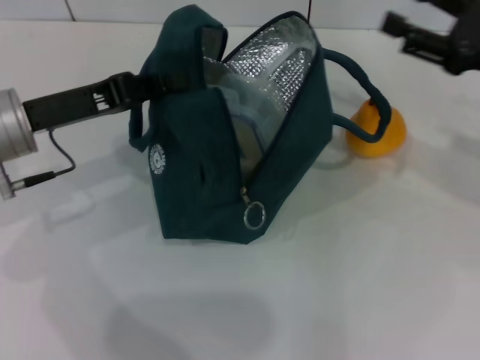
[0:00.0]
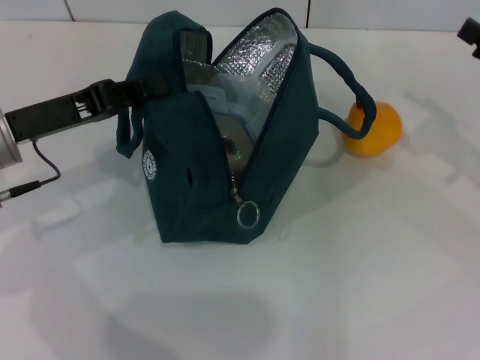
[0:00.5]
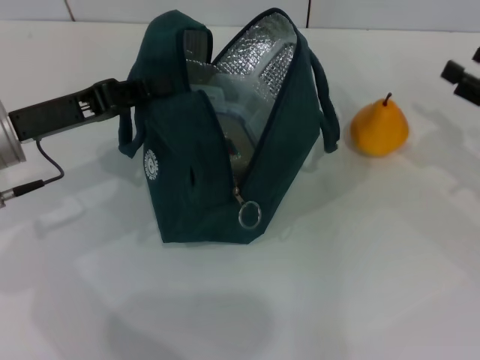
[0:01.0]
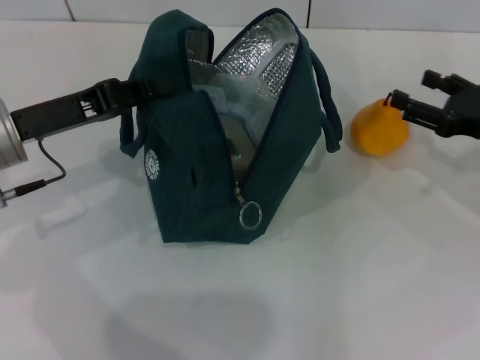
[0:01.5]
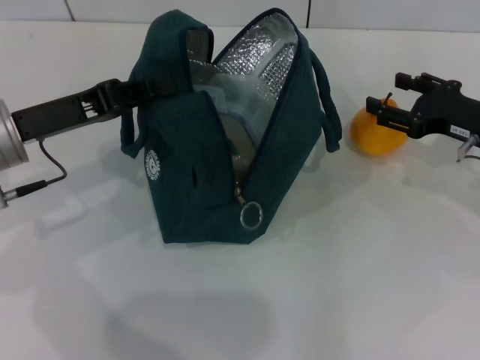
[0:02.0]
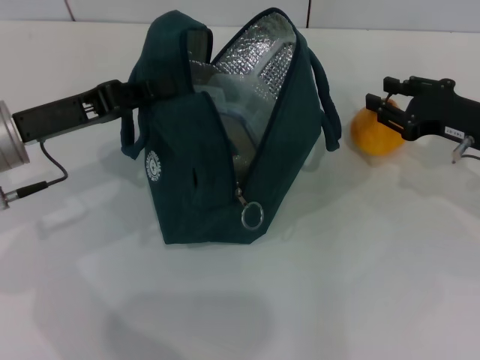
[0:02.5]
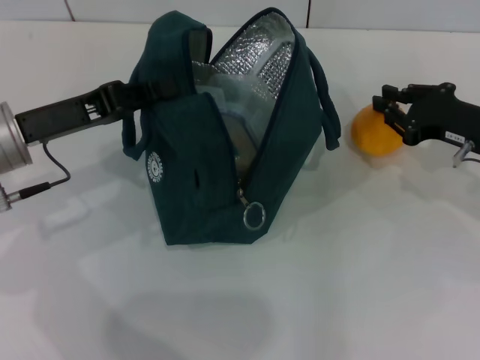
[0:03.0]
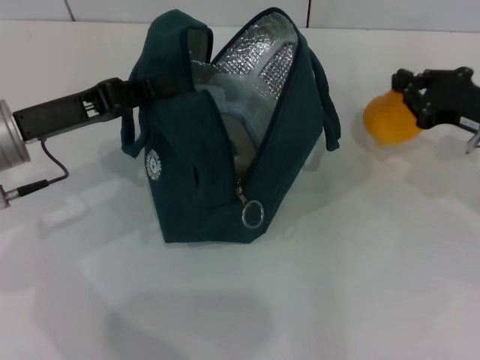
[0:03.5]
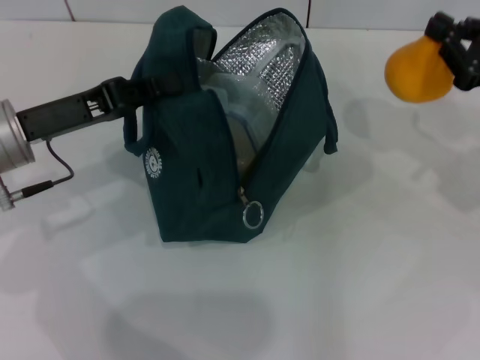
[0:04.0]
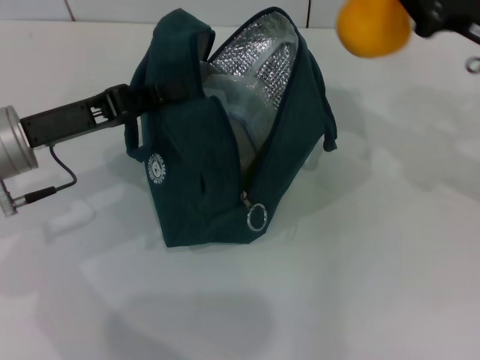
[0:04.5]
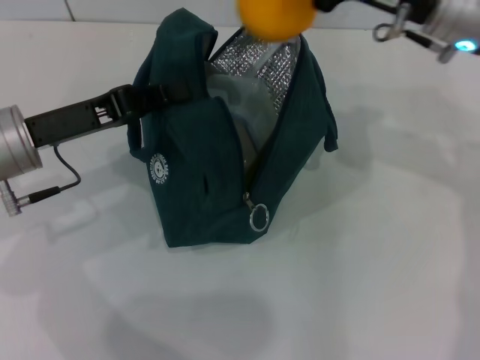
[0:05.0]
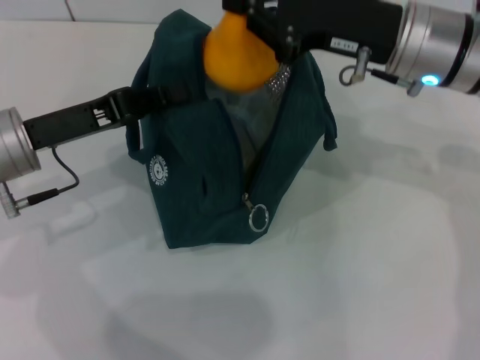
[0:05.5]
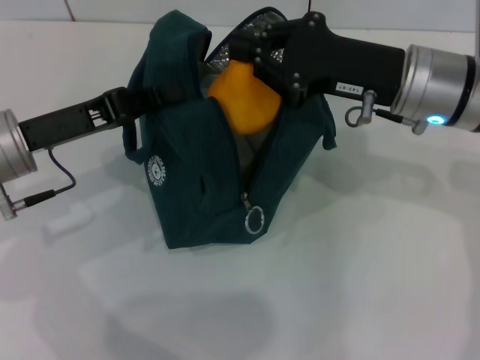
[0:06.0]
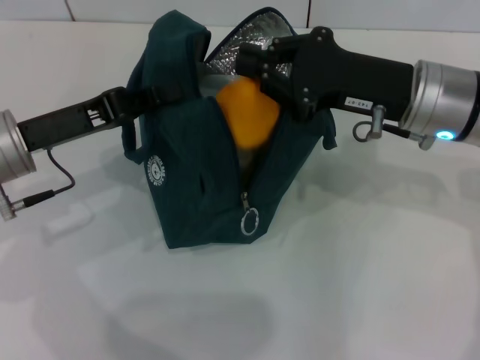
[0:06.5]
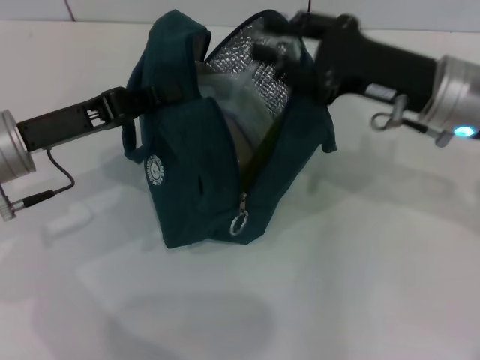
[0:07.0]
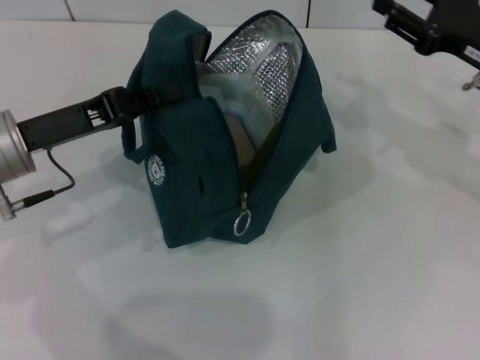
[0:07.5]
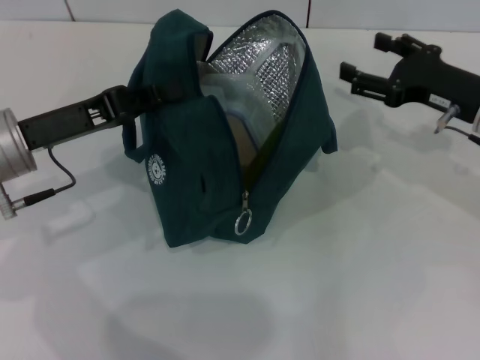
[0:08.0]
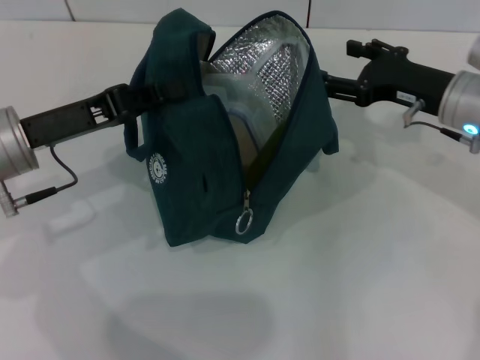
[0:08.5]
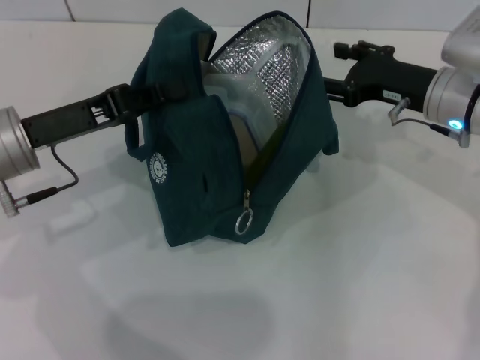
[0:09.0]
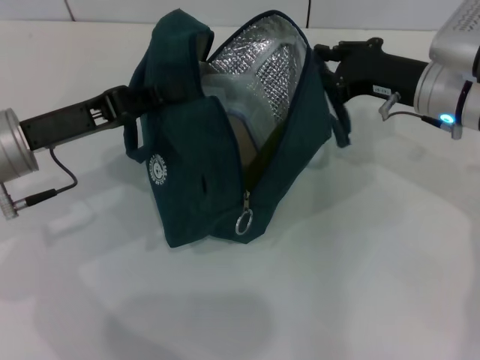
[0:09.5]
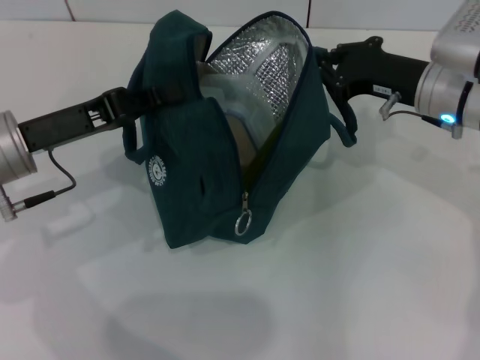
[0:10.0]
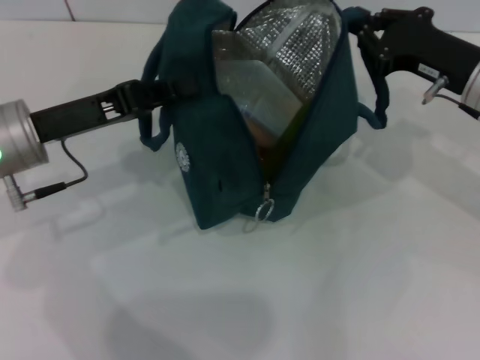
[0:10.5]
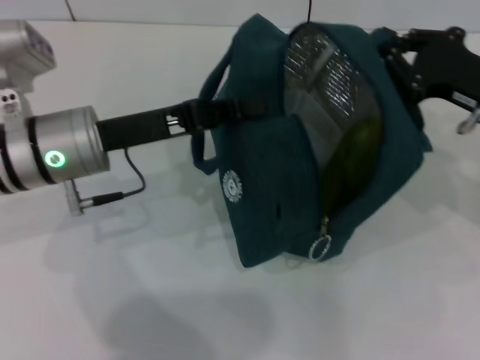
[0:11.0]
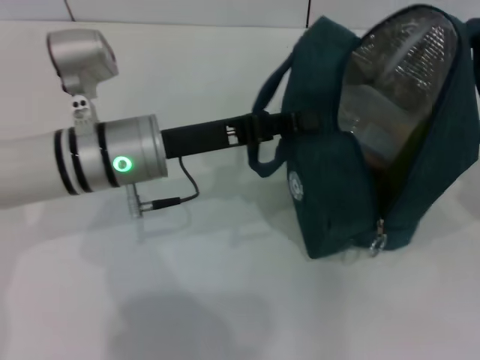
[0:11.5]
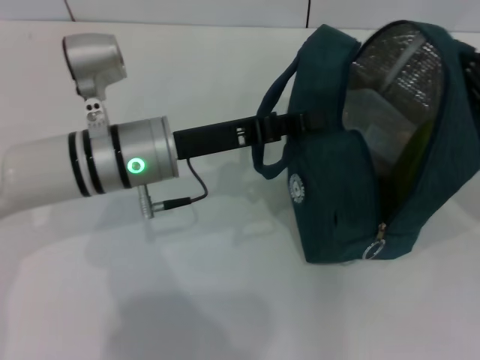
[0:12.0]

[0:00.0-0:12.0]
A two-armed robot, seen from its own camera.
Step, 0:00.0 to 0:03.0: Grab the pear with your right hand.
0:00.0 to 0:02.0: The right gripper is displaced downward by some 5 cm.
0:02.0 to 0:04.0: The right gripper changes place by approximately 5 cm, and closes up.
0:04.0 to 0:06.0: The right gripper goes approximately 15 cm to the left.
0:06.0 to 0:08.0: The right gripper goes roughly 10 cm to the right and downward, and opens its fingers.
0:08.0 to 0:10.0: The right gripper heads to the left, covering some 5 cm, and closes its fingers.
0:10.0 to 0:12.0: The right gripper moves to the right and backward, some 15 cm, while the left gripper is displaced to the right by about 10 cm.

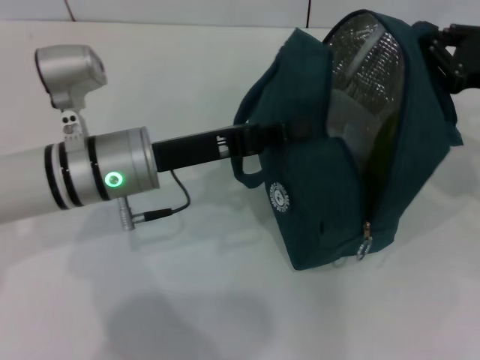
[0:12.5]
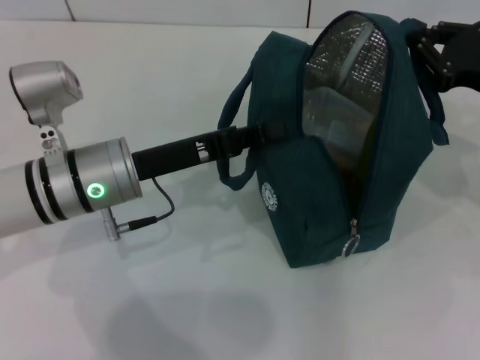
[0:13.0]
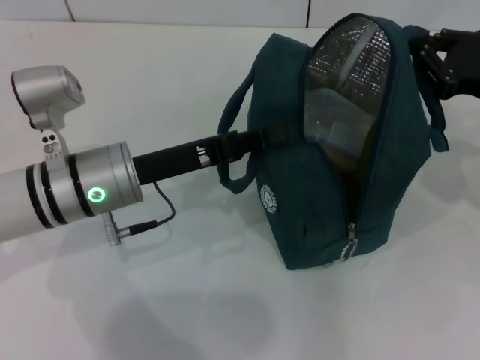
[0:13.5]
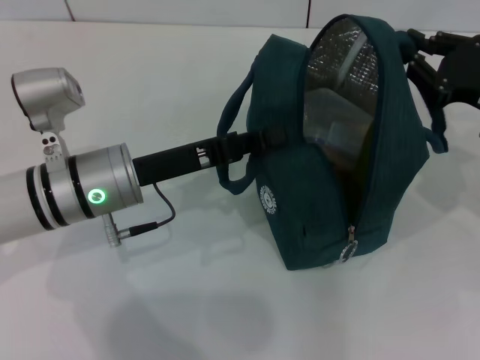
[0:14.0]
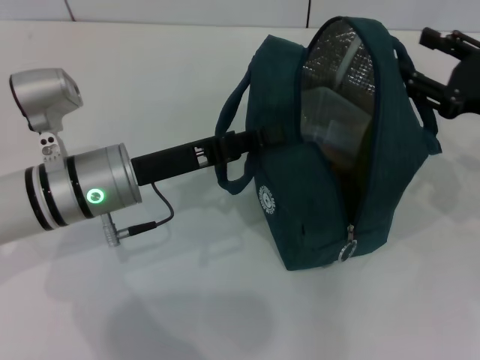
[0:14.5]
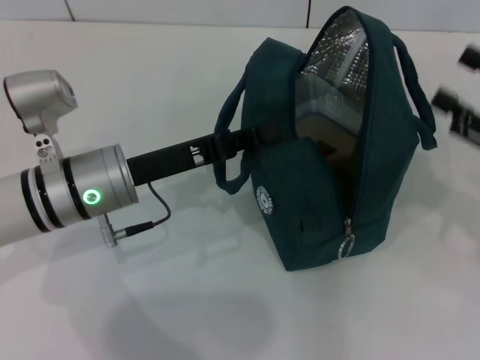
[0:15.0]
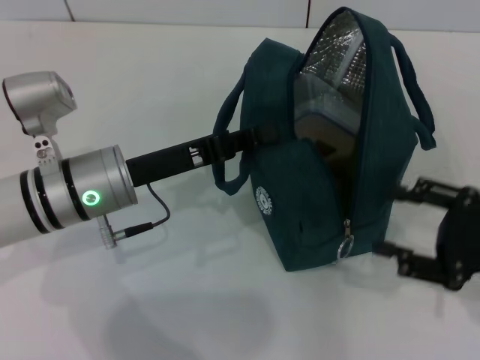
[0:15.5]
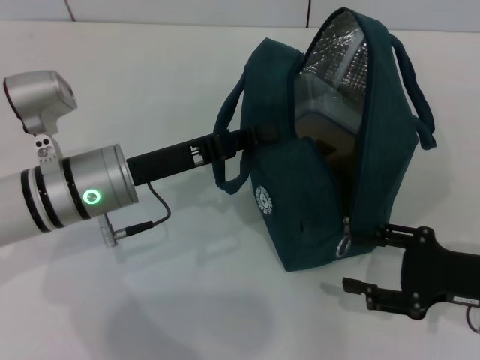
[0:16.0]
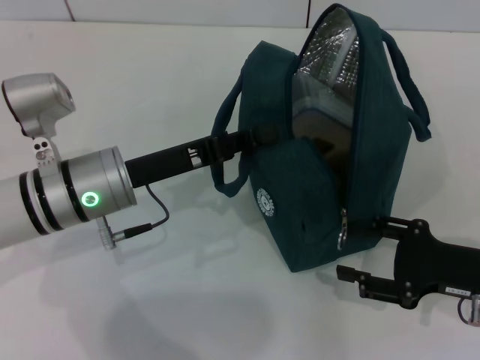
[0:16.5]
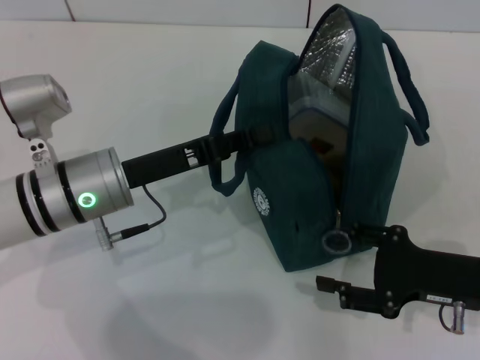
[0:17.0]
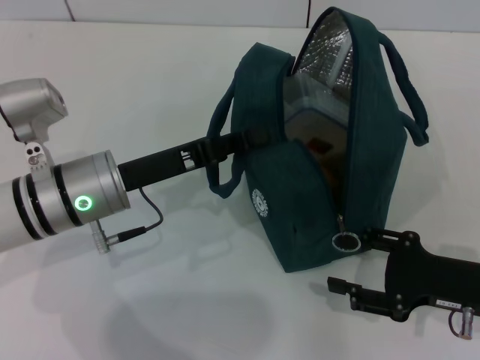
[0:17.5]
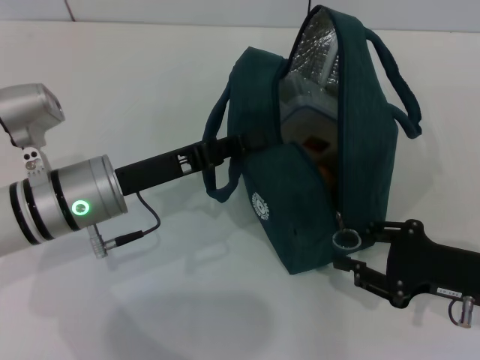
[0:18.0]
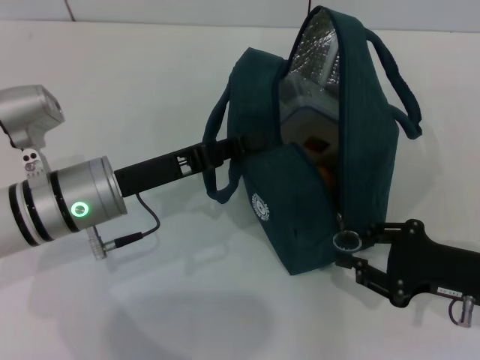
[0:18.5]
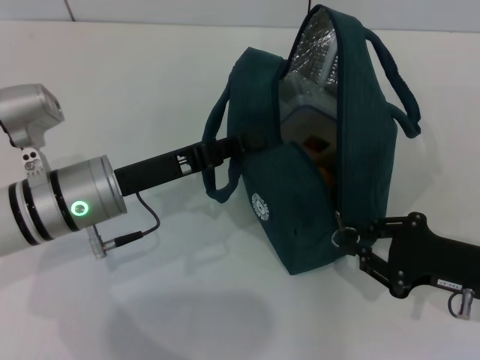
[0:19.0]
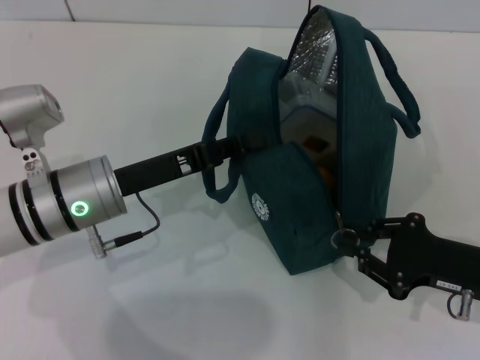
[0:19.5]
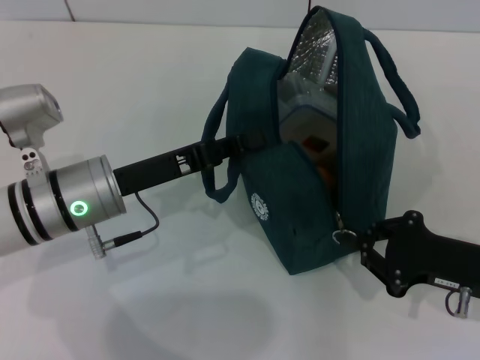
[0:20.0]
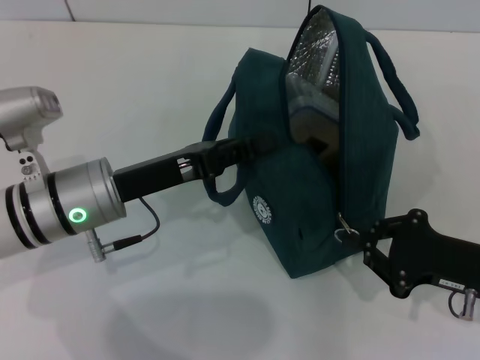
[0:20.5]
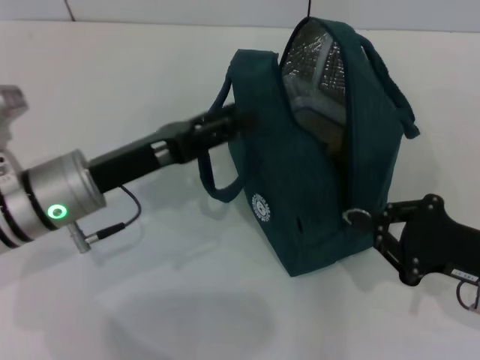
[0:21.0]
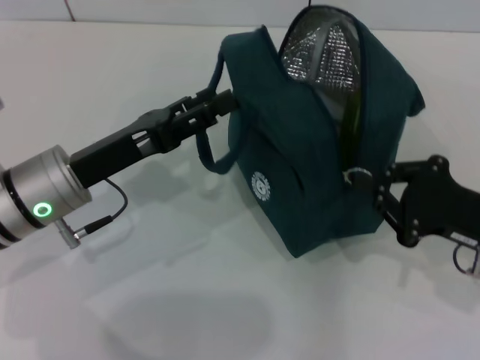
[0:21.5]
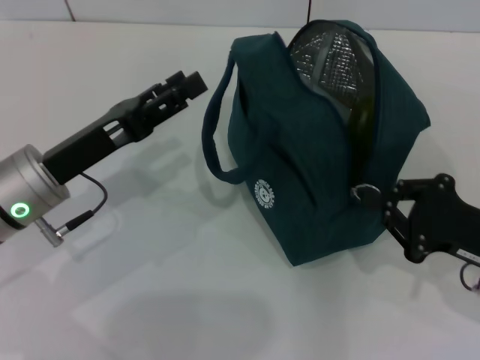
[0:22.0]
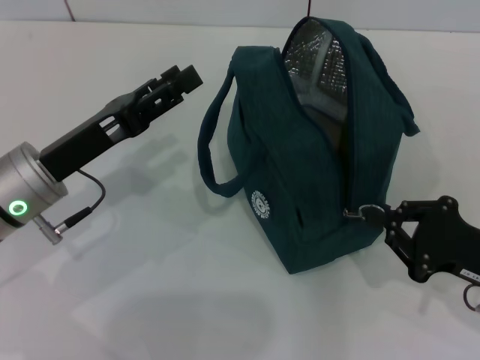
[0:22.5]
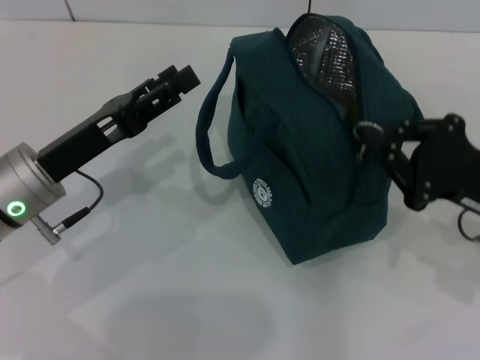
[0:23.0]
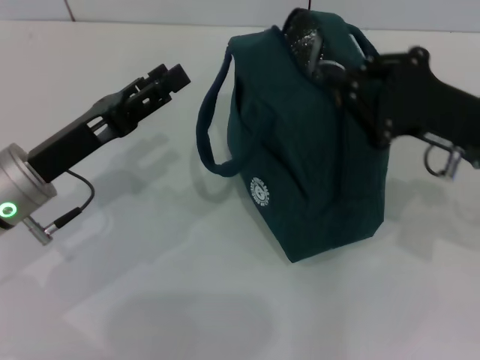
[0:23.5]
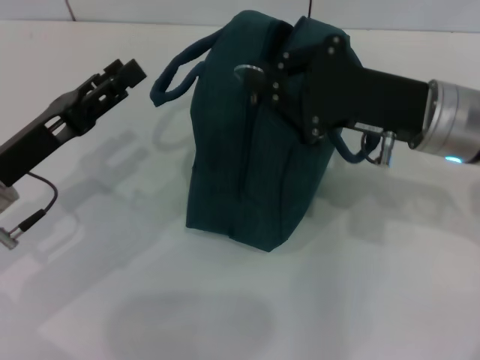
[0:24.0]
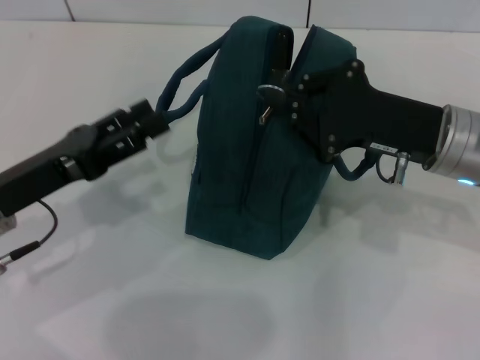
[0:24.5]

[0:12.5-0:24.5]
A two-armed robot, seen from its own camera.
Step, 0:15.0 to 0:21.0: Hold the lunch bag with your left hand.
0:12.5 to 0:14.5: The right gripper opens.
0:14.5 to 0:16.5: The right gripper goes approximately 10 cm backward and downward.
0:16.5 to 0:18.5: The right gripper closes up.
0:18.5 to 0:20.5: The right gripper closes.
0:20.5 to 0:22.5: The left gripper opens its fingers.
0:22.5 to 0:24.5: The right gripper goes approximately 15 cm to the left, forward and upward.

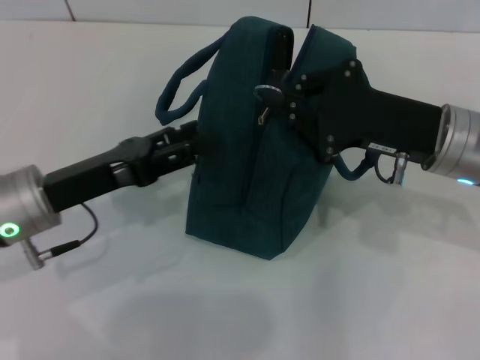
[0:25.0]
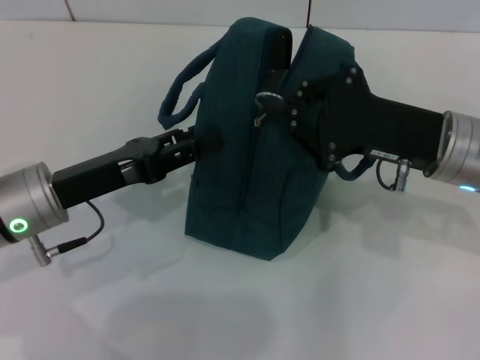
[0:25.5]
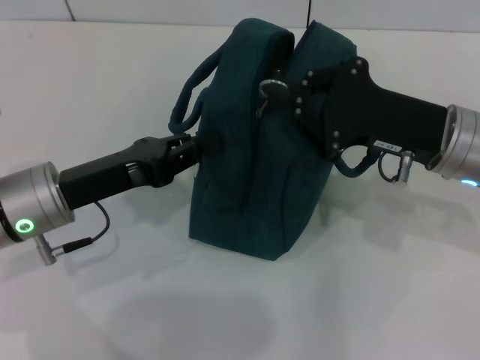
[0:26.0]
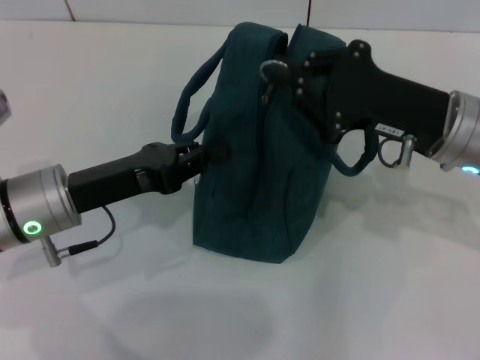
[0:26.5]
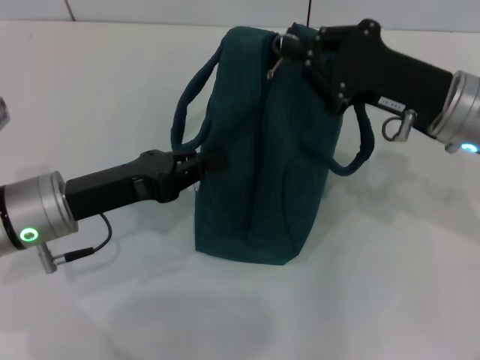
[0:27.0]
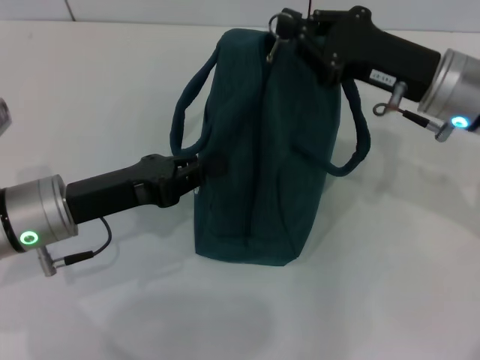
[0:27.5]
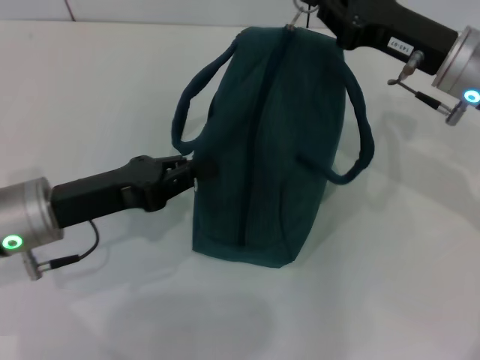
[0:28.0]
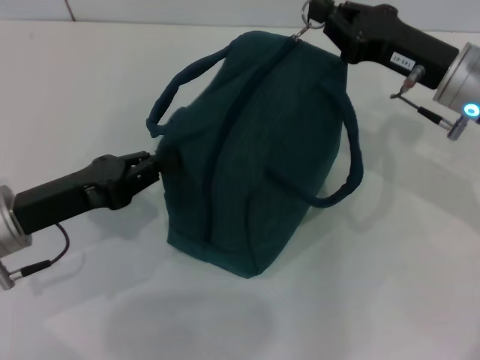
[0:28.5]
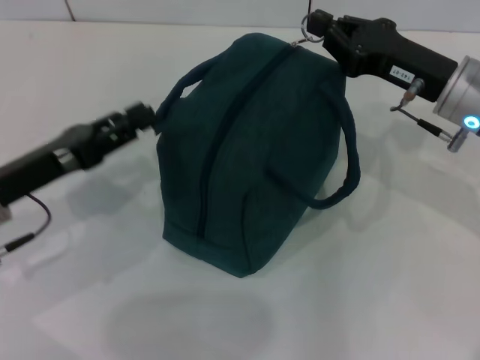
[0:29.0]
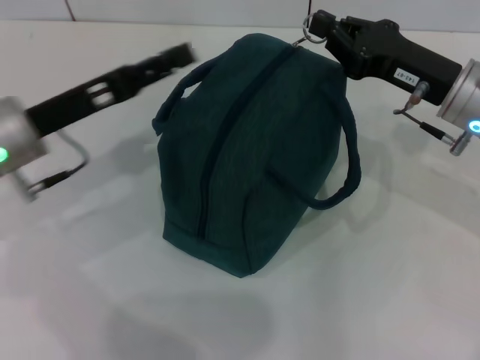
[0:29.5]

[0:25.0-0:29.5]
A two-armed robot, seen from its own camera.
0:25.0 to 0:27.0: The left gripper closes up.
0:27.0 to 0:29.5: The left gripper ends up roughly 5 cm from where it was, and opens.
